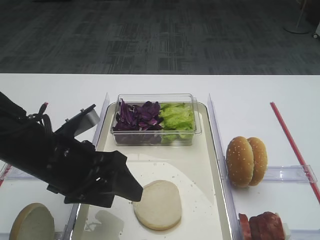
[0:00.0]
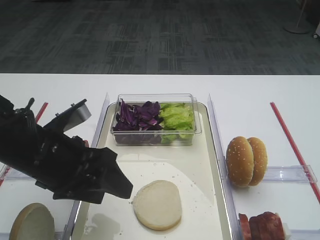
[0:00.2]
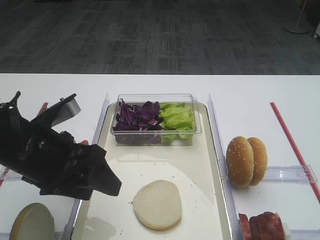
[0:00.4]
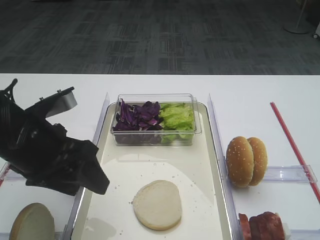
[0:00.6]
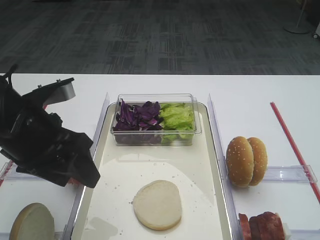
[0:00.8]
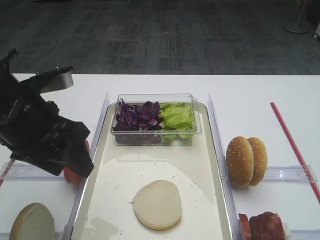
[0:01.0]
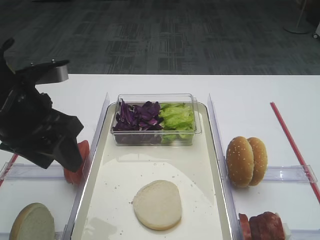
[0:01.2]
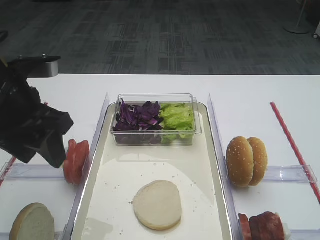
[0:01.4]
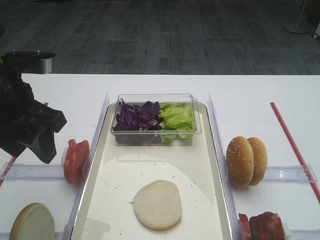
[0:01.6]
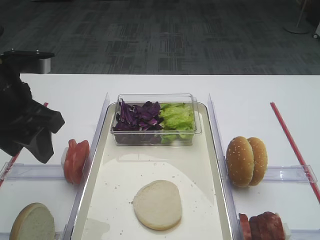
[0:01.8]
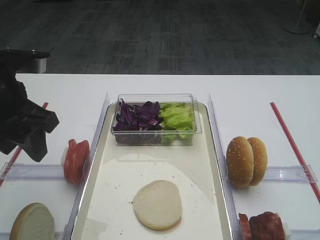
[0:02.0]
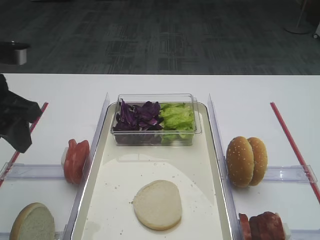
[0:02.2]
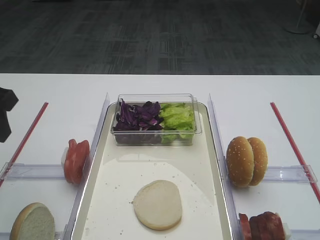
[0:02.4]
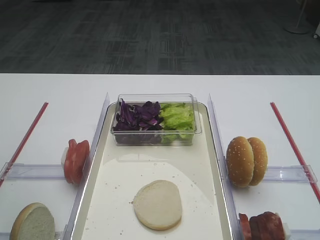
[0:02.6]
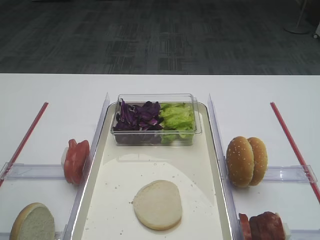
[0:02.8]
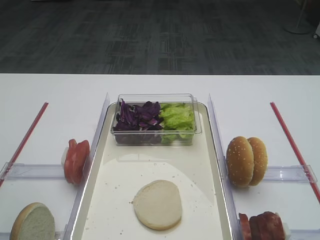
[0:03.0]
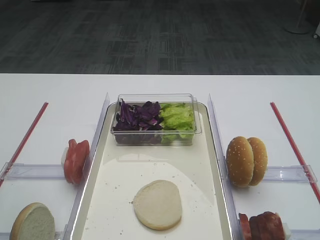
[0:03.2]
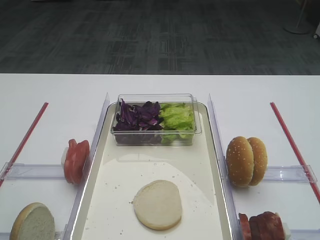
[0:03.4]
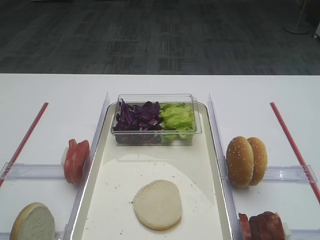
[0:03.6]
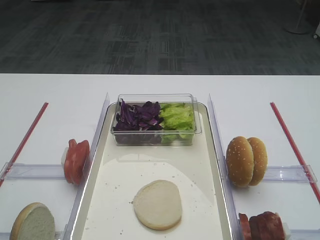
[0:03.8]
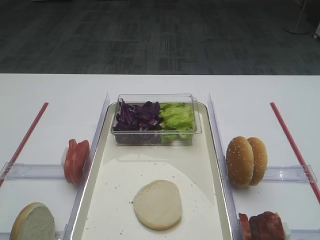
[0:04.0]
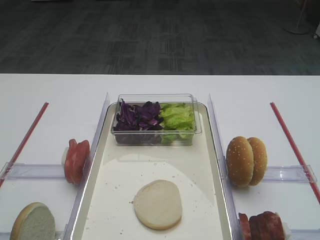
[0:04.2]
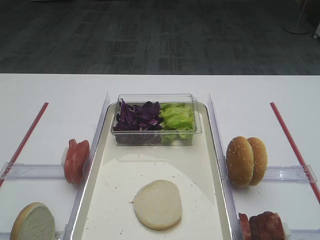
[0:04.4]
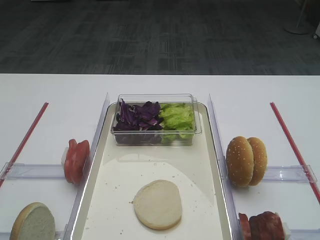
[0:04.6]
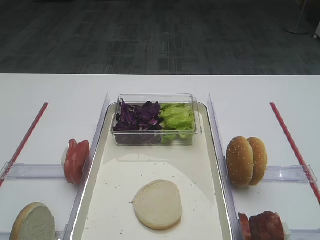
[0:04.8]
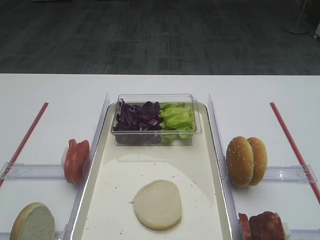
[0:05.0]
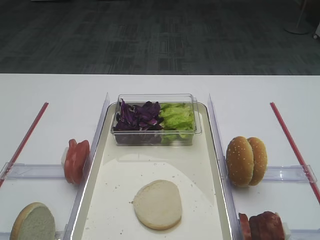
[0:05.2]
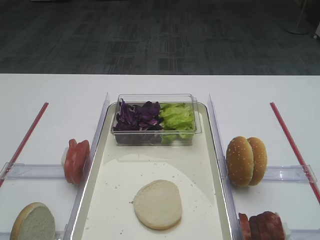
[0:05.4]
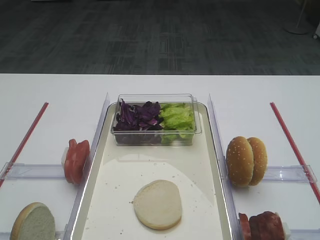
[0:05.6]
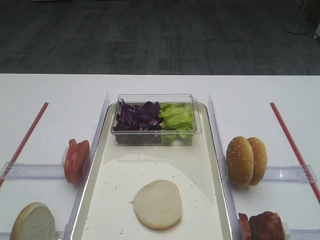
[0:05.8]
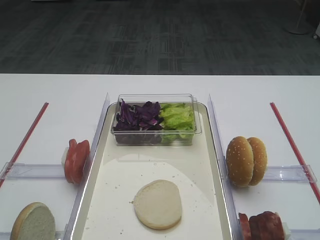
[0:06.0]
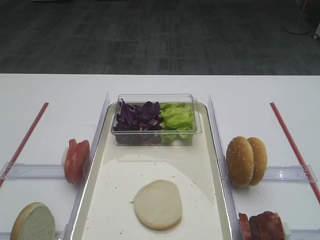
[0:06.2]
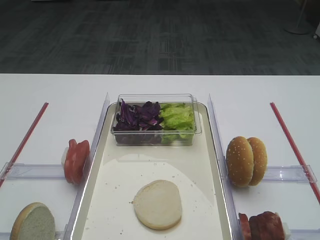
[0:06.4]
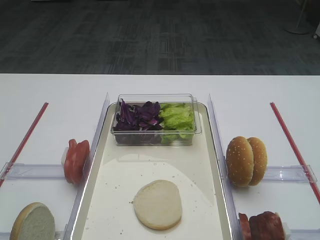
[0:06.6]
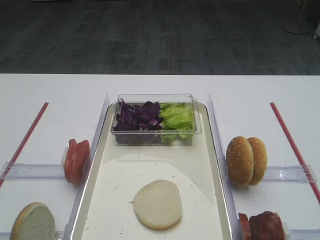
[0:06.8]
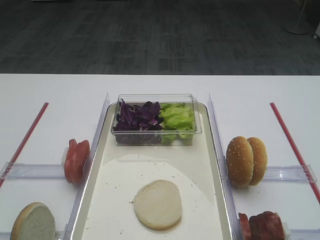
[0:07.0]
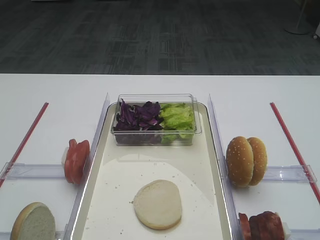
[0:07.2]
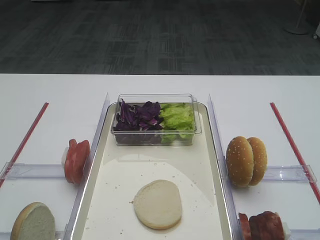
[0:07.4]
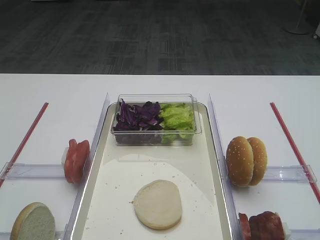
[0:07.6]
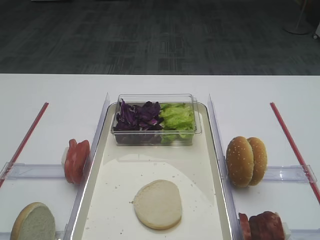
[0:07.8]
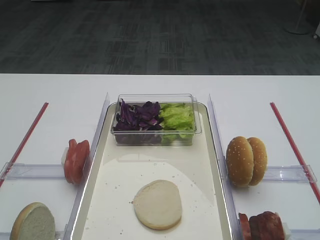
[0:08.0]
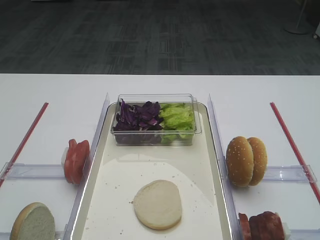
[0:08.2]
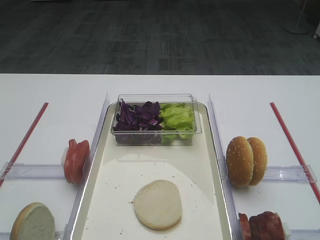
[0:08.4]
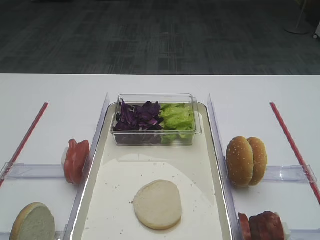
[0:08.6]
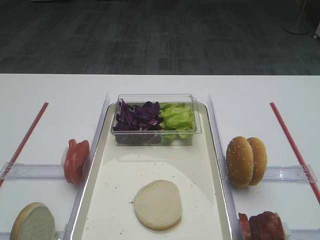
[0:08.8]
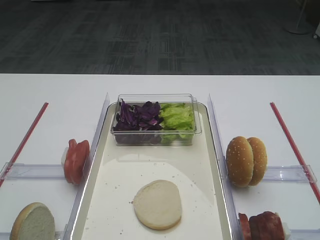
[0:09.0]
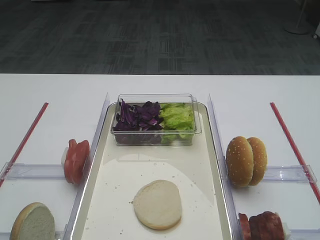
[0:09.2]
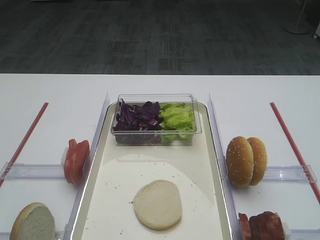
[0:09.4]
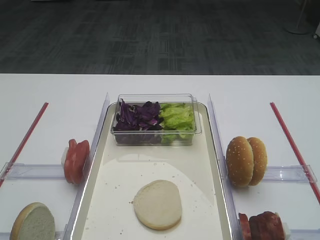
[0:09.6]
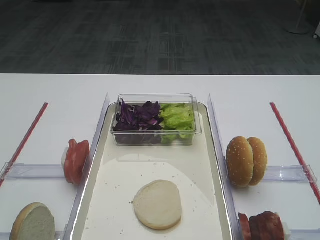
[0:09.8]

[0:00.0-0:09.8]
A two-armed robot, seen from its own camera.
0:00.0 to 0:01.4: The left gripper is displaced upward and to the left by approximately 10 cm.
0:01.4 to 0:02.8: The left gripper travels to the left by some 10 cm.
0:07.0 to 0:09.8: Neither gripper changes place.

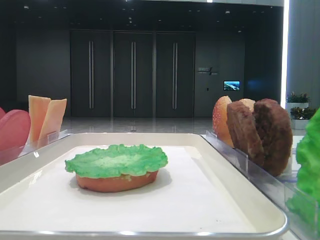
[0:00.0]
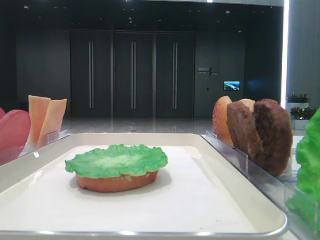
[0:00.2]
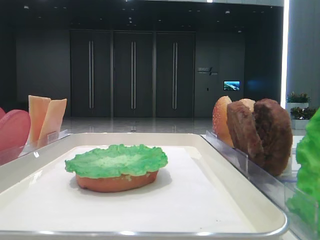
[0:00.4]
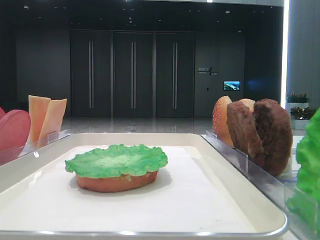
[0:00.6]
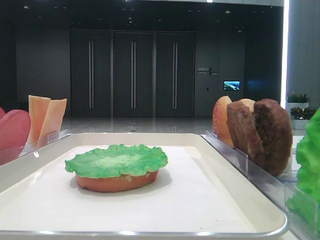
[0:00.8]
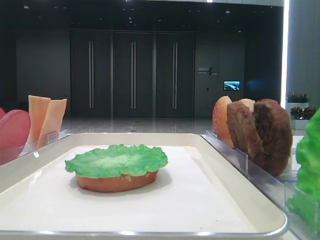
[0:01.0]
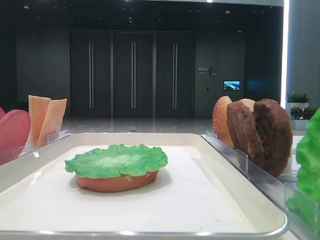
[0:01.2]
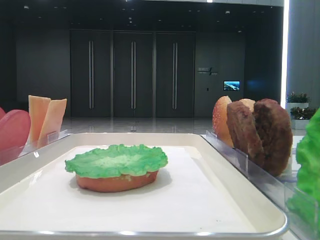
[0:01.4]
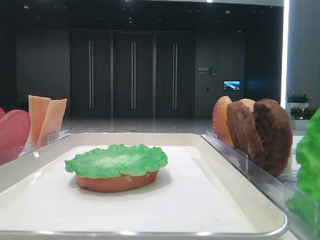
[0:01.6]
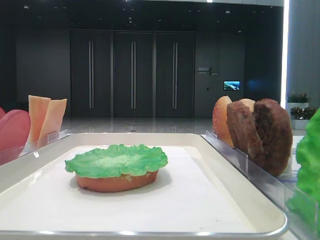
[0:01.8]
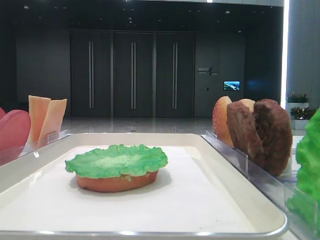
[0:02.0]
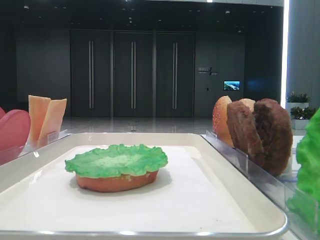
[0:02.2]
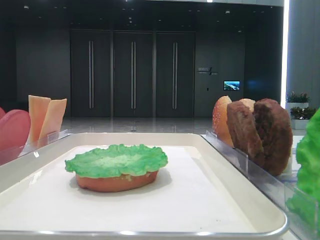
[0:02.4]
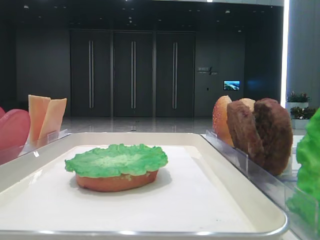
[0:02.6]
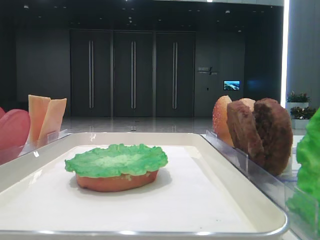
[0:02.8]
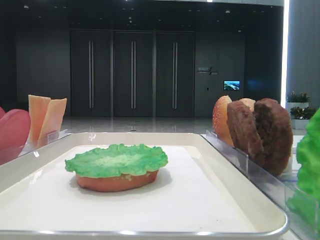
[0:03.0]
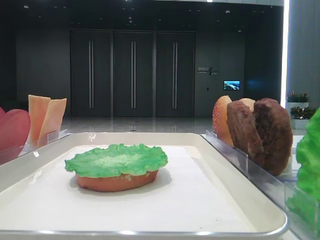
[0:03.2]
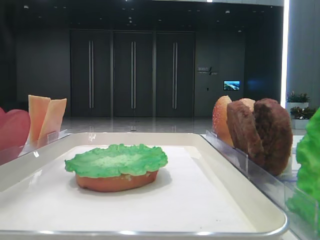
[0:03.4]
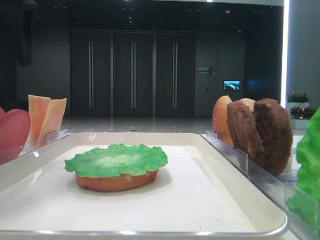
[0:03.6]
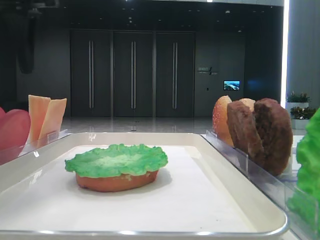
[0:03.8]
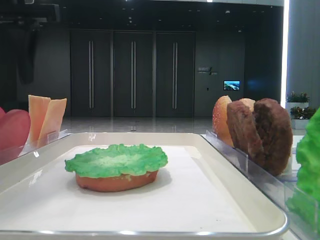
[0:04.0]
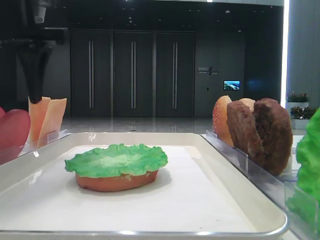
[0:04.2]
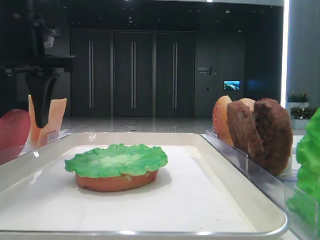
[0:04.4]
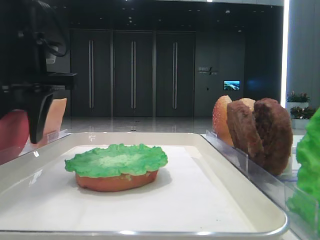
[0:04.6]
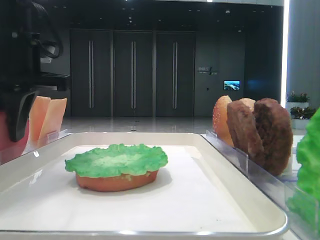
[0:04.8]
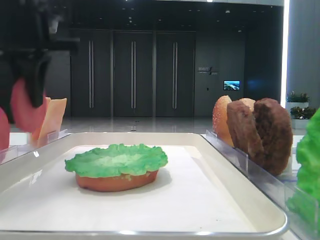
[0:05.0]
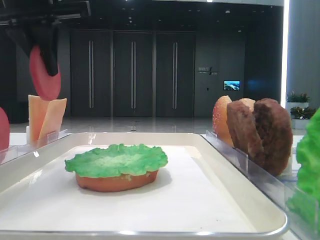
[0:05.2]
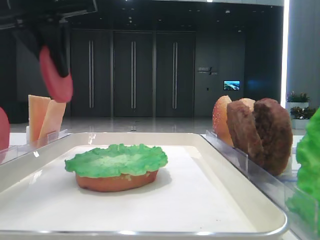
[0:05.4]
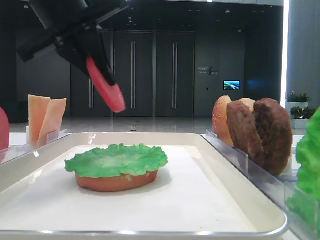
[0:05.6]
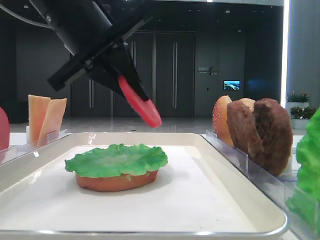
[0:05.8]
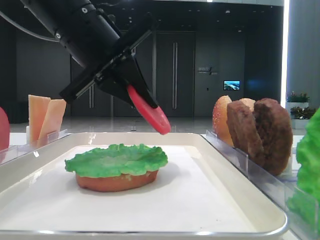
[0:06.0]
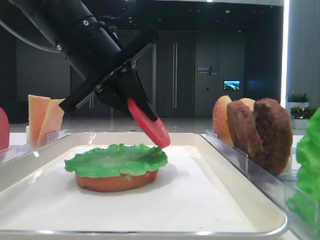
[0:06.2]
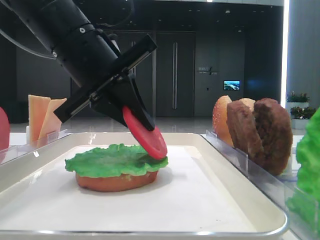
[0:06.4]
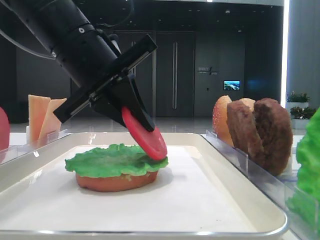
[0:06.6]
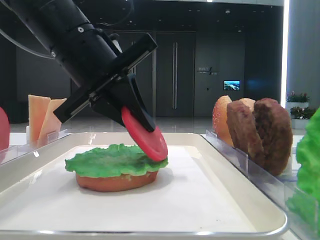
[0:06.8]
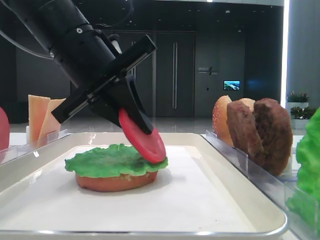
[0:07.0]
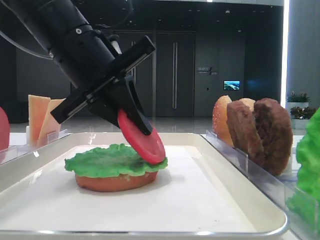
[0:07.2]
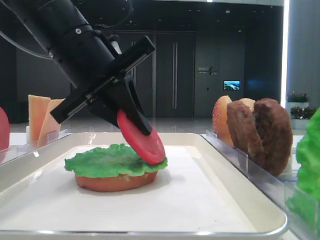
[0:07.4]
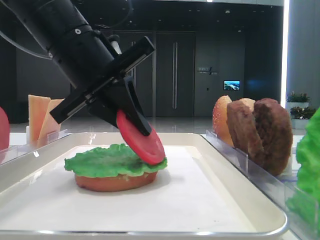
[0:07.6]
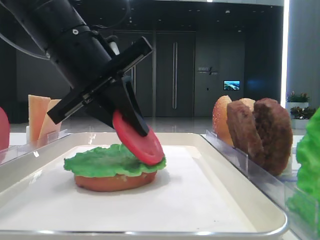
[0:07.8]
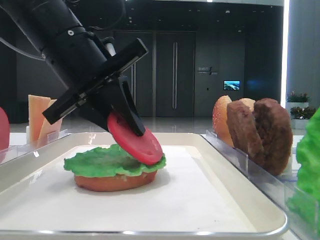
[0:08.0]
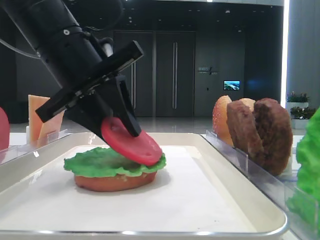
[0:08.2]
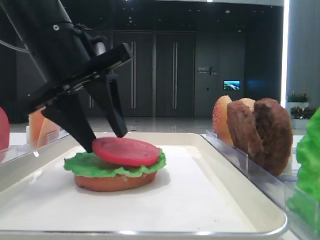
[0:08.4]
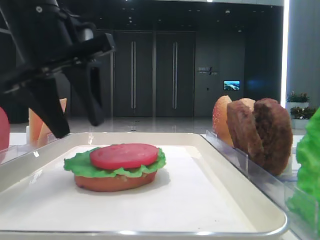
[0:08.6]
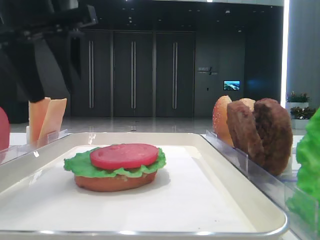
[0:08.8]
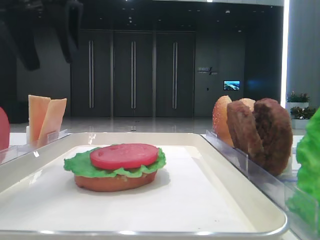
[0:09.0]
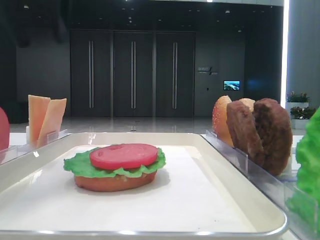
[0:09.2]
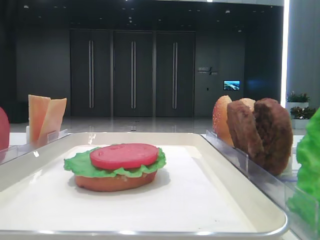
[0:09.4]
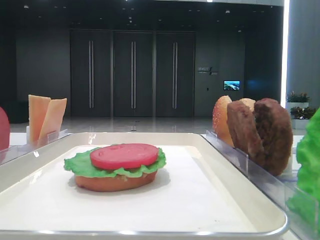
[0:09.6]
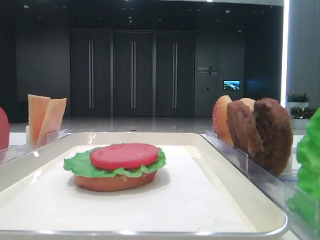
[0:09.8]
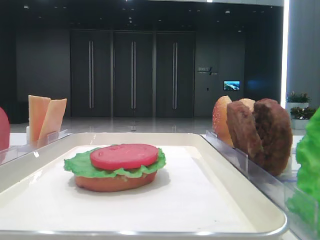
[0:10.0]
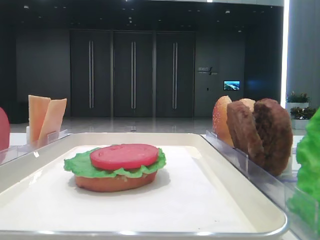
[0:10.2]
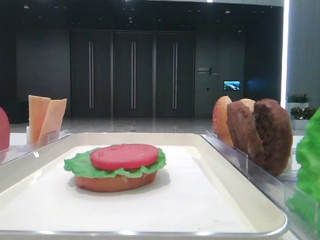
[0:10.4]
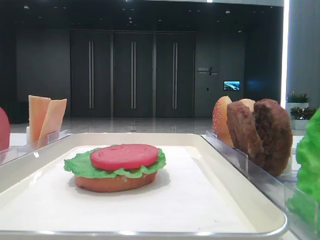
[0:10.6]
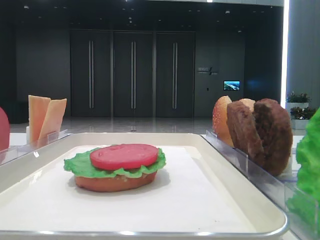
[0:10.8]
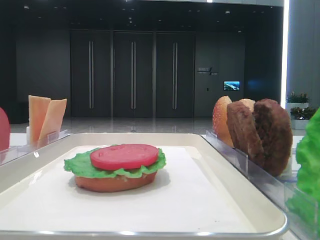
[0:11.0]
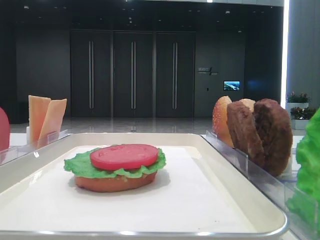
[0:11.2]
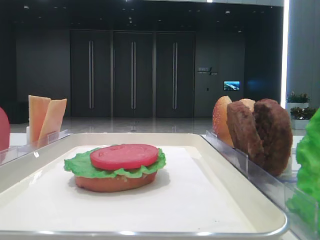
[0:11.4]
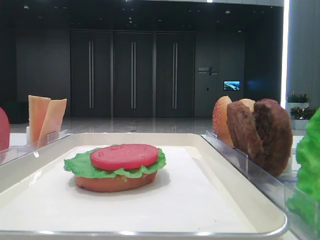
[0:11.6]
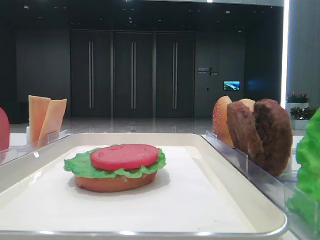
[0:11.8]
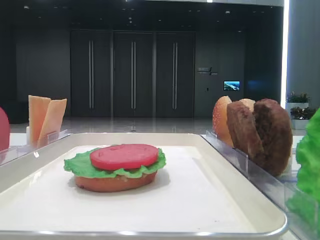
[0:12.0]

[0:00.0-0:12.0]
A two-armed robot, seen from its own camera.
Step, 0:00.0 to 0:04.8: Pick up the tomato slice with the left hand.
Step, 0:05.0 to 0:08.4: Place the tomato slice on the lettuce leaf with the left hand.
0:03.0 to 0:04.4: The left gripper moves to the right and downward, approximately 15 cm.
0:04.4 to 0:06.0: The left gripper is displaced to the right by approximately 10 cm, goes upward and returns, approximately 5 cm each way, and closes its fingers.
0:06.0 to 0:07.6: The grippers stay close to where they were, moving slightly.
0:07.6 to 0:09.0: The left gripper goes roughly 15 cm upward and to the left, and opens up.
0:09.0 to 0:10.4: The left gripper is displaced backward and to the left by about 30 cm.
